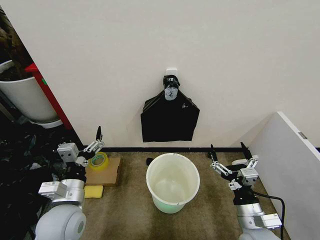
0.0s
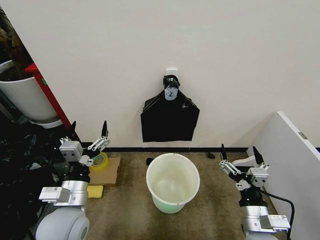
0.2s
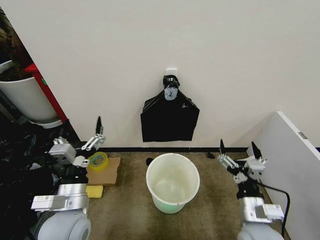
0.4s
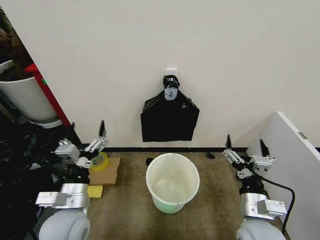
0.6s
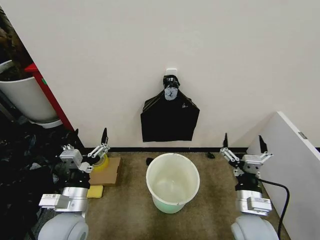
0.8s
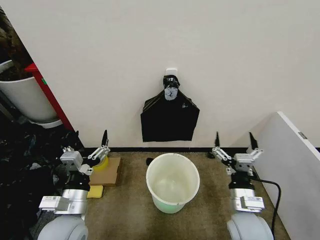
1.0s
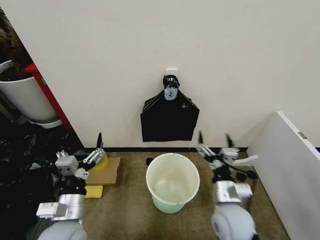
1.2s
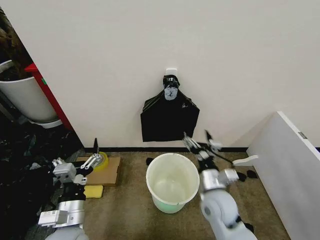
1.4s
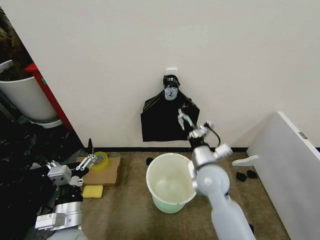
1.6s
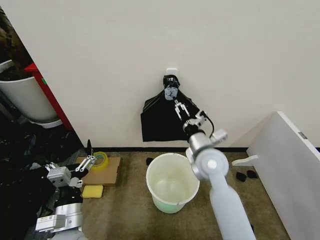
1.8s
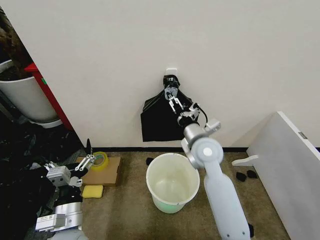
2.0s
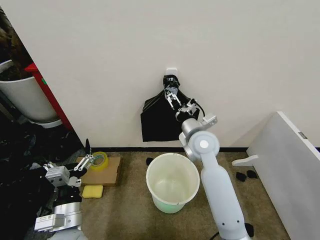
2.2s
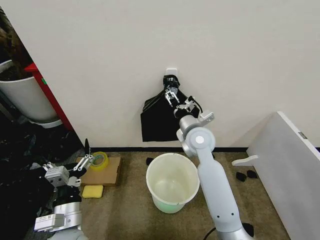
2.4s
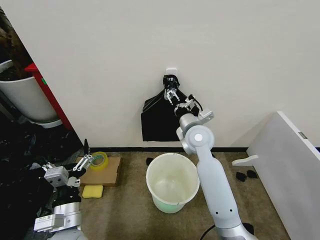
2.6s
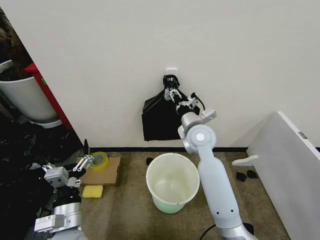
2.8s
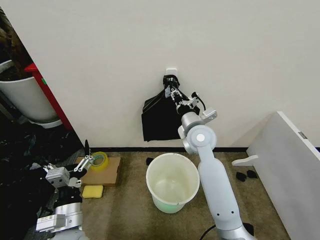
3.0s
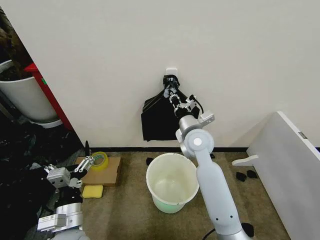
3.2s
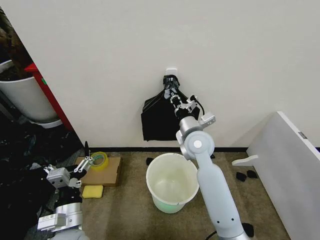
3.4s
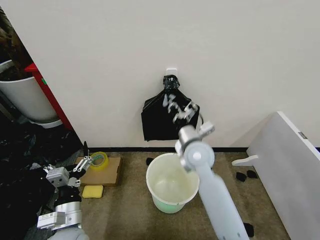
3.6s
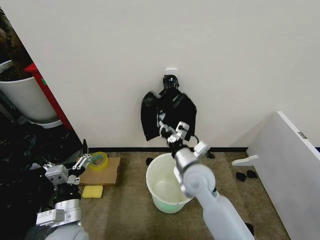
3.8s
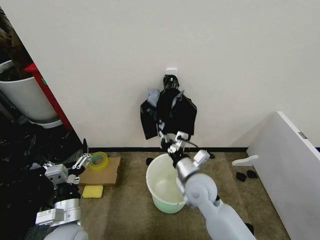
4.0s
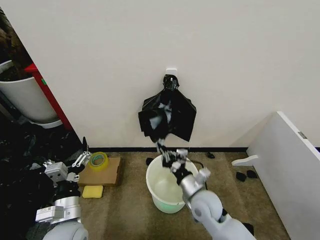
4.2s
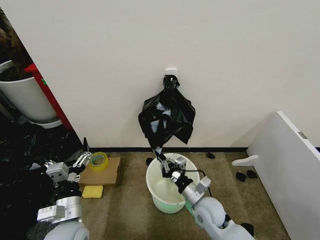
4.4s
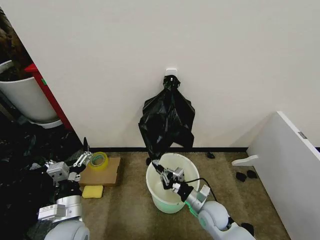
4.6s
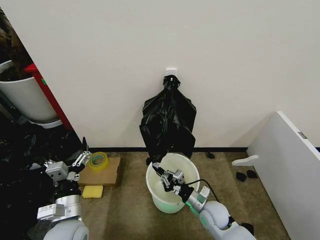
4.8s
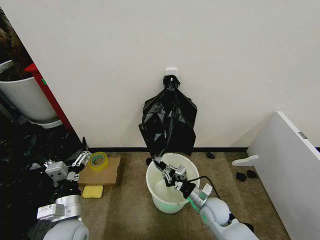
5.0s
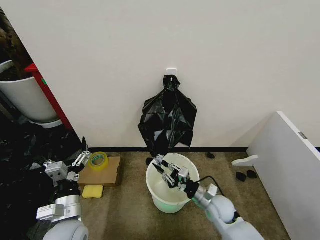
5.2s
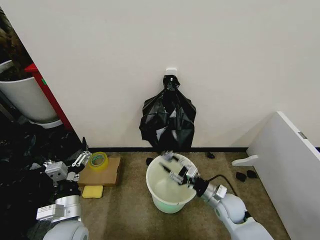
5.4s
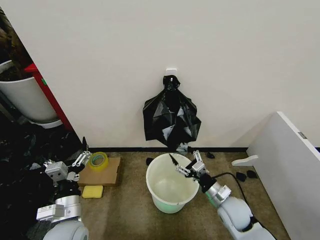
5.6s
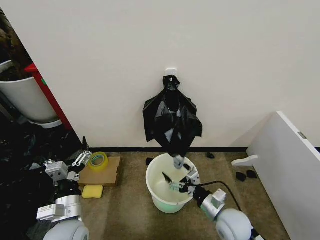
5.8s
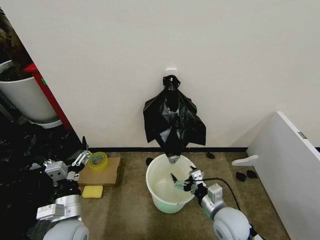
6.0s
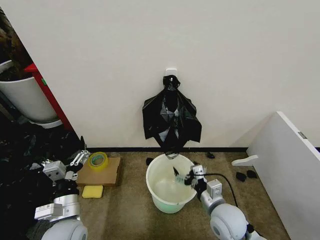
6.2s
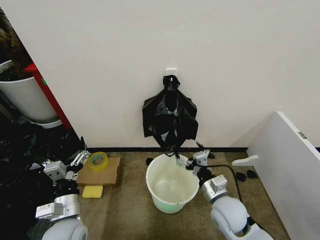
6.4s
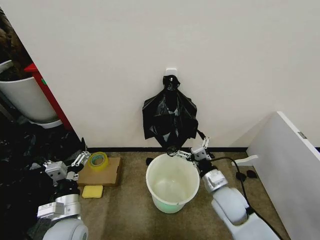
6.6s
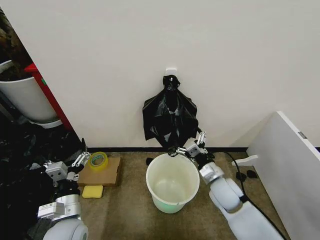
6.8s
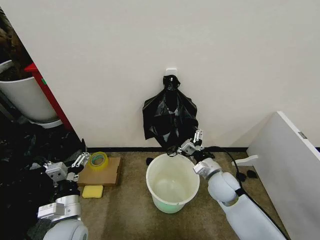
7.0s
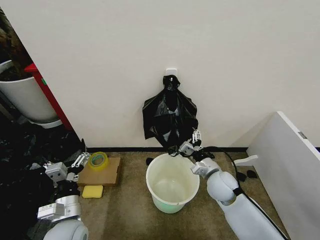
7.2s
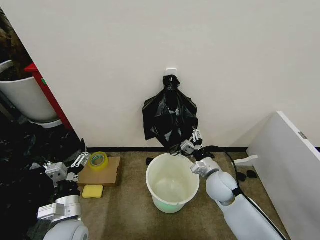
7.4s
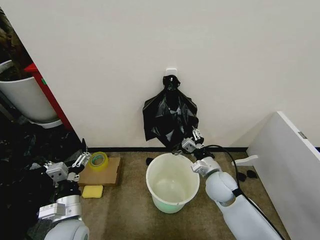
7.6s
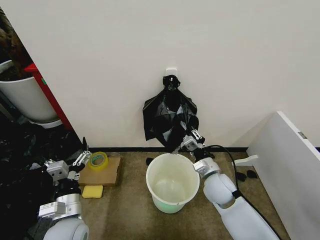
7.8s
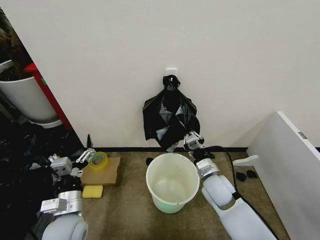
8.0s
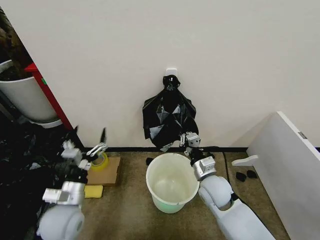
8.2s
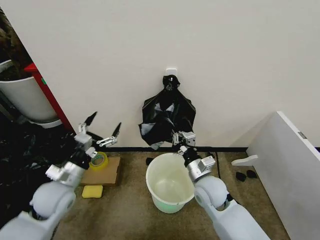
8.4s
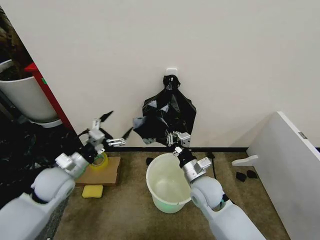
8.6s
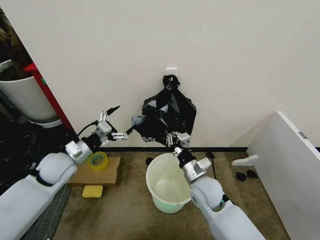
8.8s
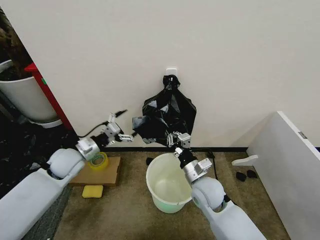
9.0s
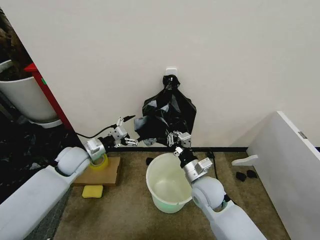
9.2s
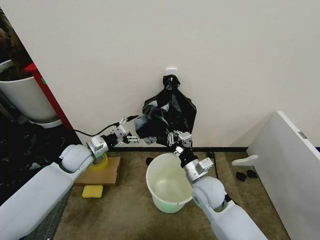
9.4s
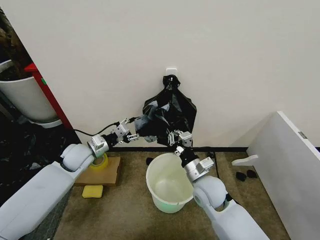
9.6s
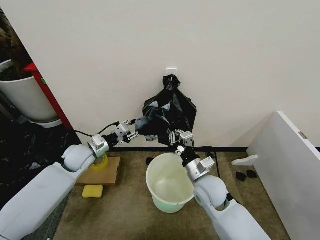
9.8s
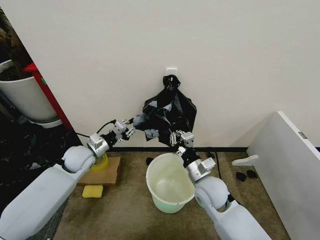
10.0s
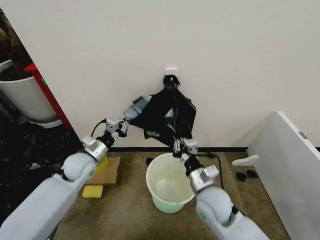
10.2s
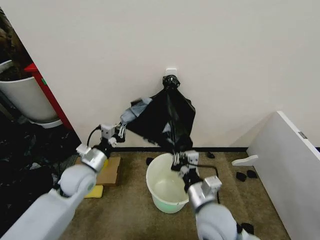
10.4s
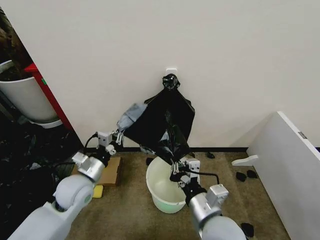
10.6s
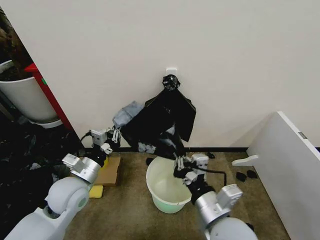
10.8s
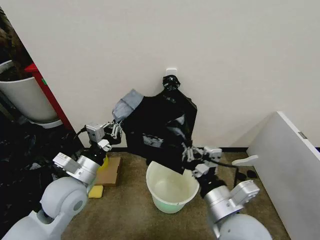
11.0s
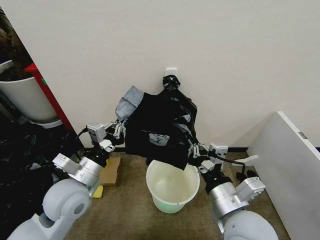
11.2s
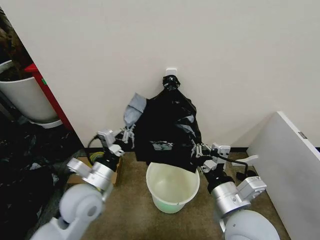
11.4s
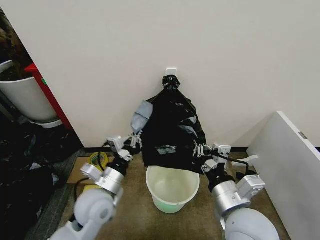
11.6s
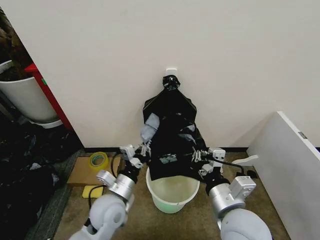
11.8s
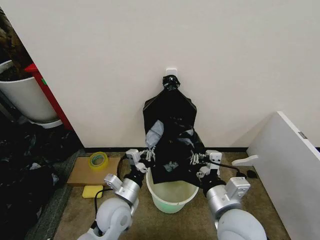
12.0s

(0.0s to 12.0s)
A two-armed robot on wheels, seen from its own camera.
Task of the whole recording: Place the garbage bag over the trash bin.
1.6s - 3.0s: The right gripper heads forward and upward, covering approximately 15 cm, and closes.
3.0s - 4.4s: The right gripper shifts approximately 25 cm downward and backward.
4.4s - 6.0s: The right gripper moves approximately 5 cm, and opens its fingers.
6.0s - 7.6s: The right gripper is displaced forward by some 10 cm, and closes.
7.6s - 9.0s: The right gripper is displaced to the left by about 5 cm, and closes up, while the left gripper travels forward by about 20 cm.
9.0s - 10.4s: The left gripper shifts roughly 5 cm to the right and backward, and closes up; the right gripper heads backward, covering some 10 cm.
10.4s - 12.0s: The right gripper heads upward, covering approximately 5 cm. Meanwhile the left gripper travels to the right and backward by about 15 cm.

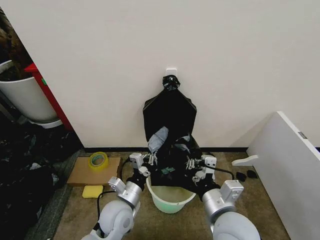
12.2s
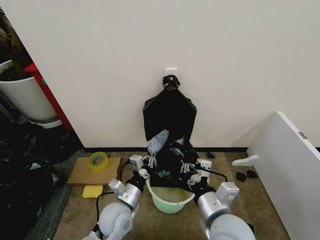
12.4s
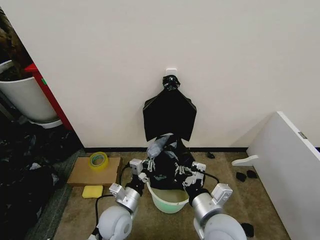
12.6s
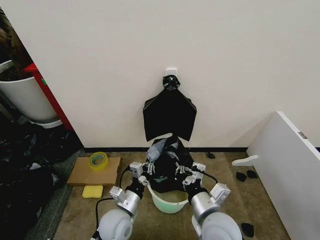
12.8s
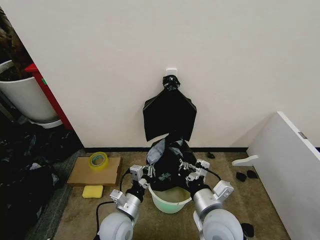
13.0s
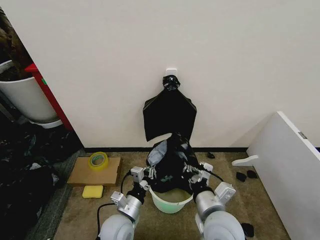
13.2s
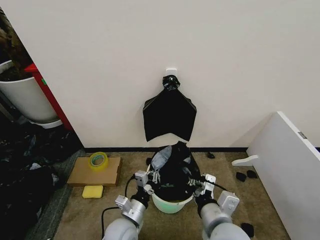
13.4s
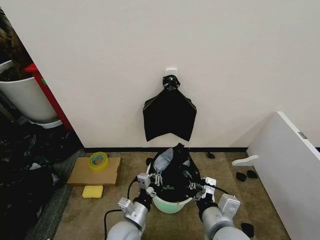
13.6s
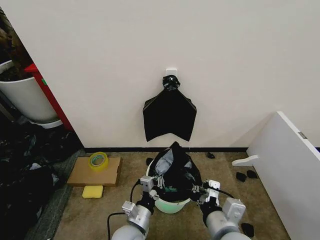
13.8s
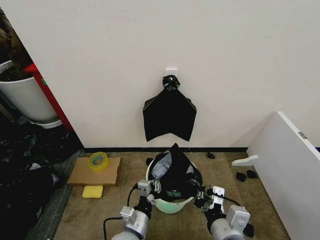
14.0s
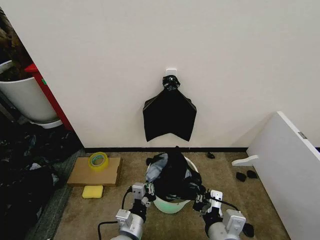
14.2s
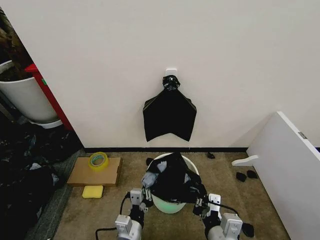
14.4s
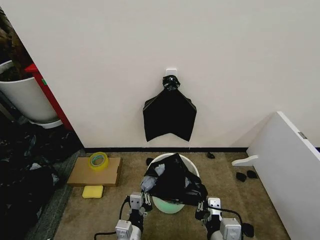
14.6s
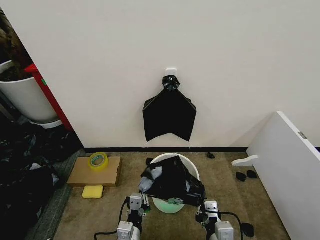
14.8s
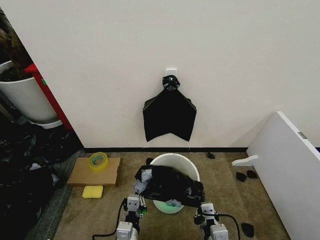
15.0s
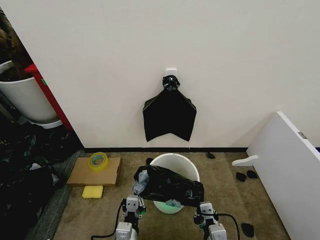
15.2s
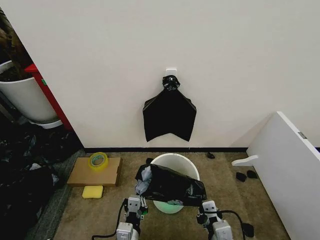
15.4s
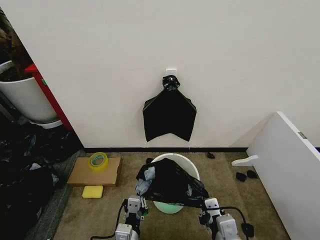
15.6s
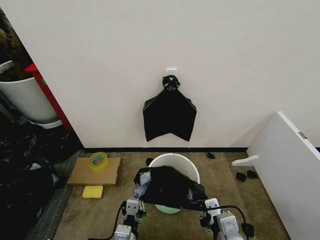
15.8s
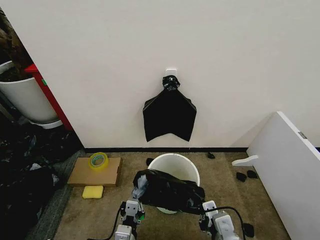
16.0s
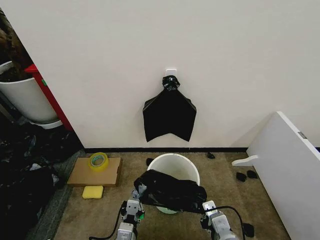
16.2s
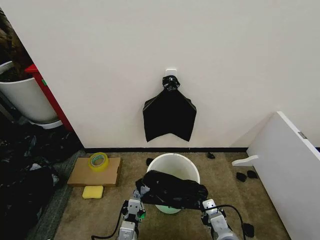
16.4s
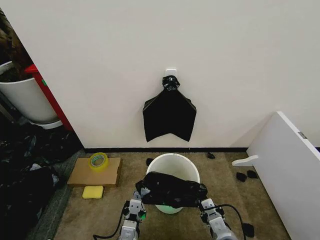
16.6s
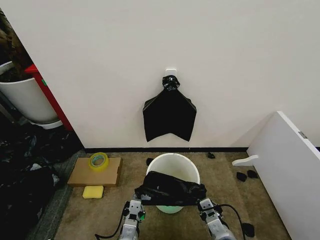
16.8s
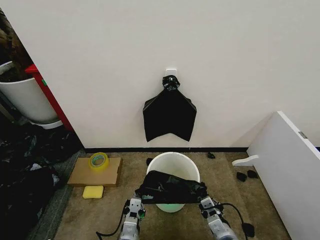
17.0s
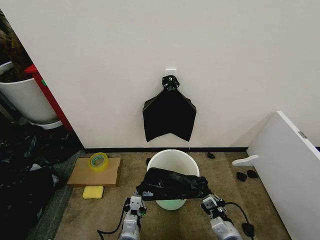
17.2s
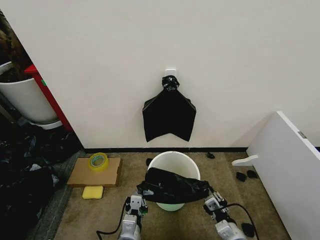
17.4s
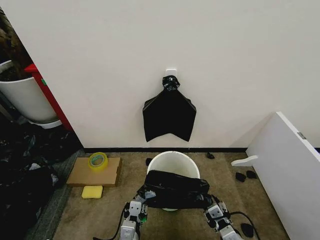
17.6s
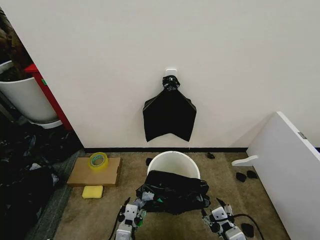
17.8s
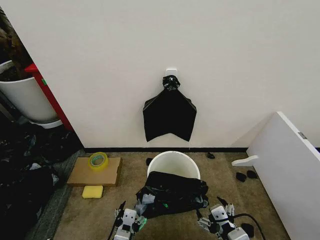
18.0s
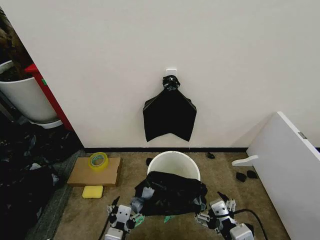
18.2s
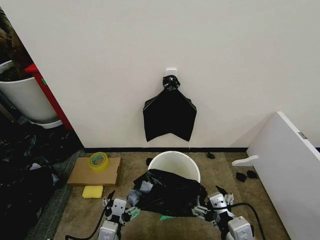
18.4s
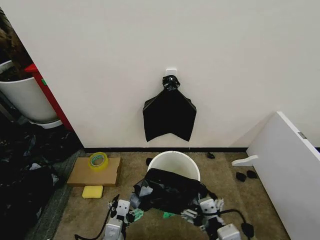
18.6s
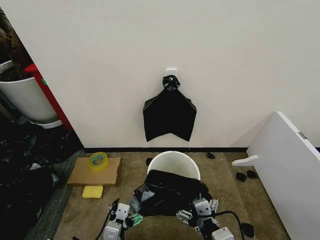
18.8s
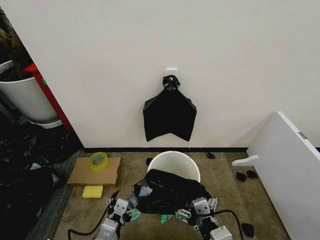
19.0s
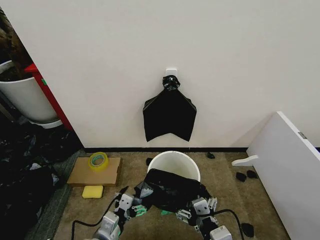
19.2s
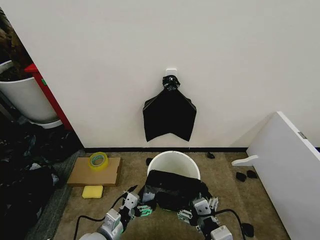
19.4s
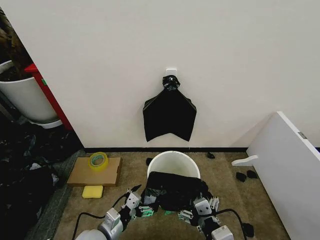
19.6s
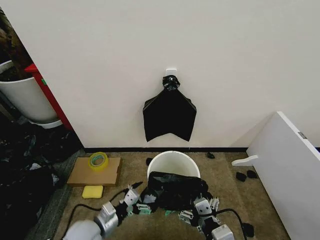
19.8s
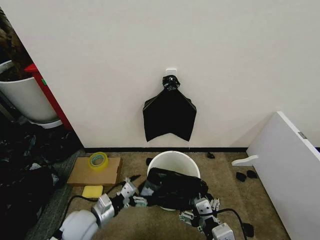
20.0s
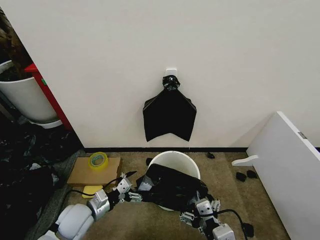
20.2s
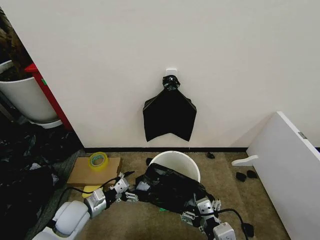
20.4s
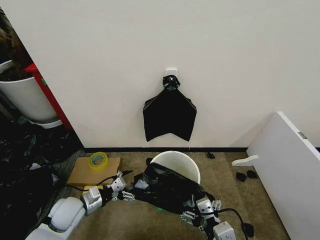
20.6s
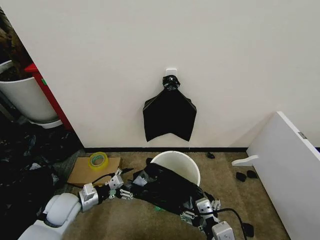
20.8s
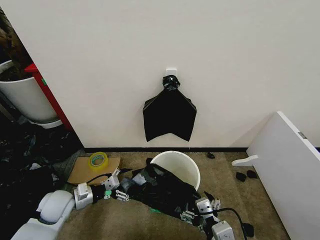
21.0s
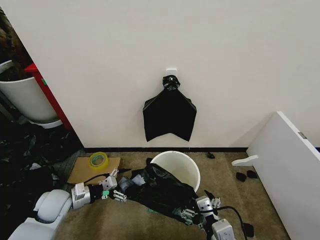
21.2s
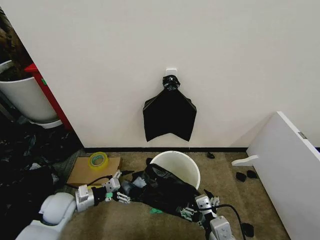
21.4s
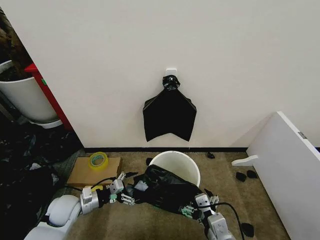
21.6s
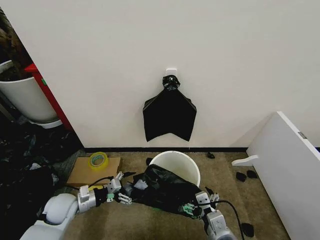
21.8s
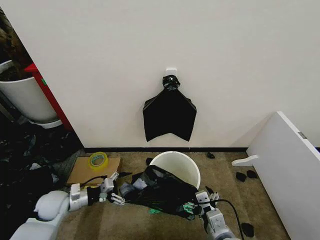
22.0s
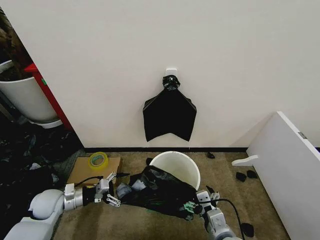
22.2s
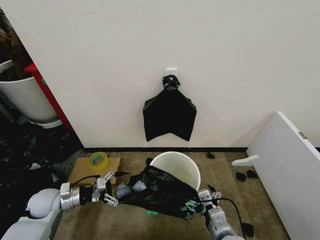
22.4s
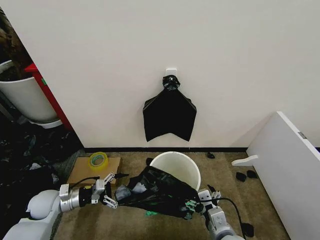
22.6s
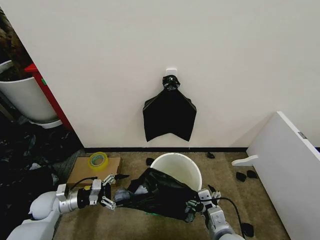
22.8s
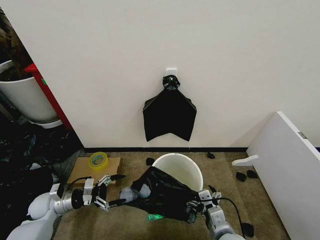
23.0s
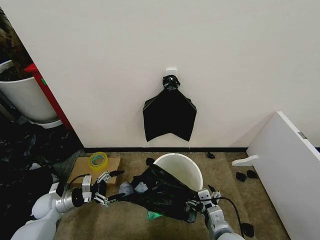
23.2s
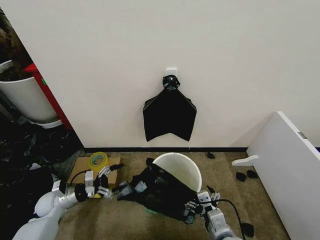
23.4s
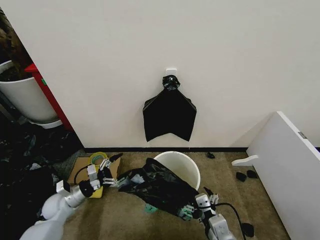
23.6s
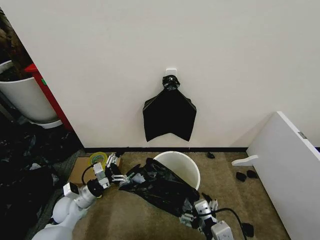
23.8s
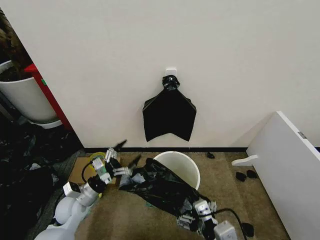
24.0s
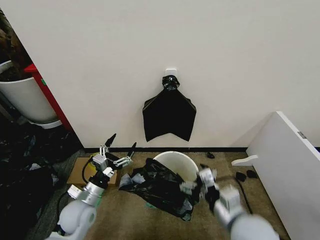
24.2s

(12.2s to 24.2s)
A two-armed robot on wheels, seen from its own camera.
Task of the whole recording: Place the garbage bag over the trash bin.
12.2s - 13.8s: The left gripper is displaced backward and downward by about 10 cm.
13.8s - 15.2s: The left gripper moves backward, some 5 cm; the right gripper goes about 10 cm downward.
15.2s - 16.6s: The right gripper moves roughly 10 cm upward and comes back.
16.6s - 18.2s: The right gripper heads upward and backward, covering roughly 10 cm, and opens up; the left gripper heads upward, covering about 10 cm, and opens up.
18.2s - 19.8s: The left gripper heads forward, to the left and downward, covering some 15 cm.
19.8s - 21.2s: The left gripper shifts roughly 15 cm to the left and forward.
21.2s - 22.6s: The right gripper heads downward, covering some 5 cm. The left gripper ends up roughly 5 cm from where it was.
22.6s - 24.2s: The right gripper moves upward, approximately 10 cm. The left gripper heads to the right, covering roughly 15 cm.
